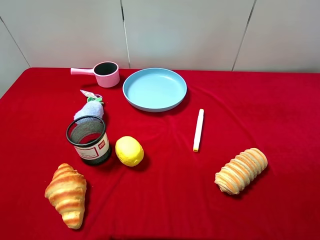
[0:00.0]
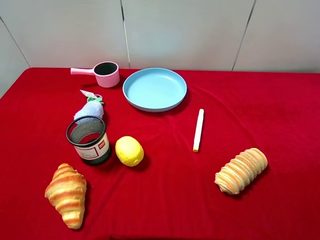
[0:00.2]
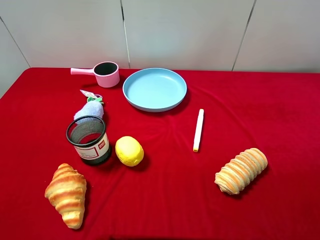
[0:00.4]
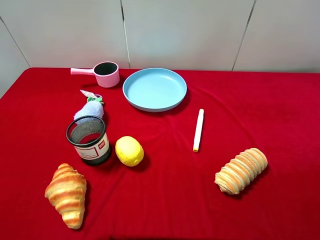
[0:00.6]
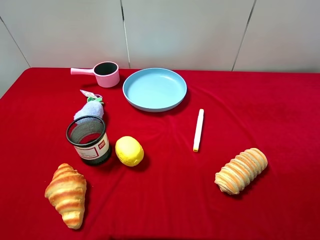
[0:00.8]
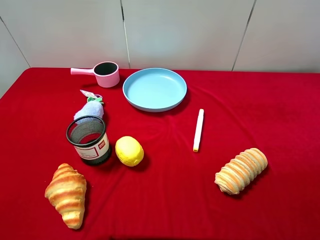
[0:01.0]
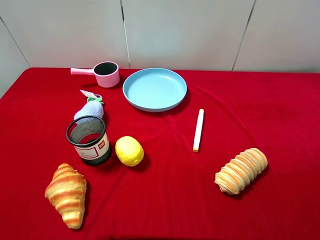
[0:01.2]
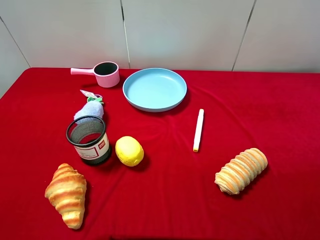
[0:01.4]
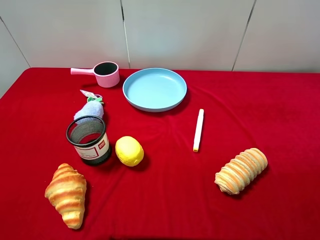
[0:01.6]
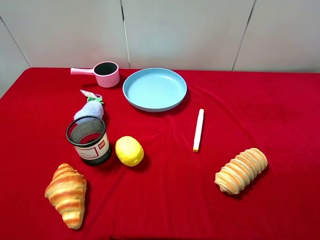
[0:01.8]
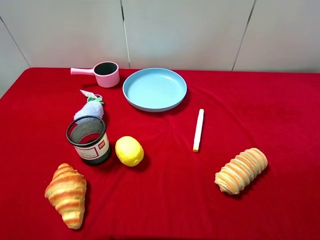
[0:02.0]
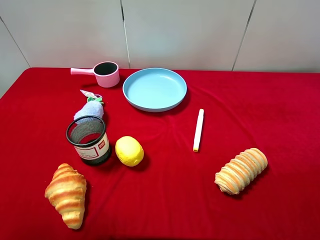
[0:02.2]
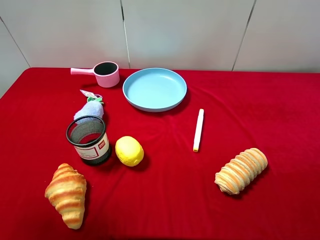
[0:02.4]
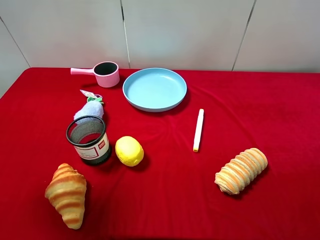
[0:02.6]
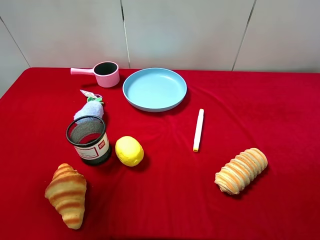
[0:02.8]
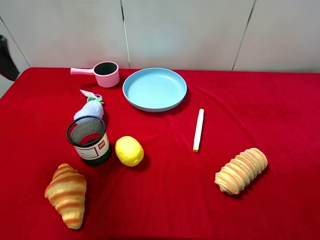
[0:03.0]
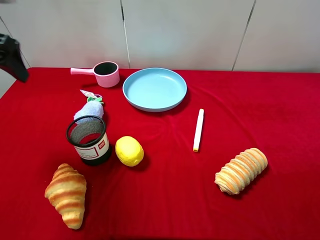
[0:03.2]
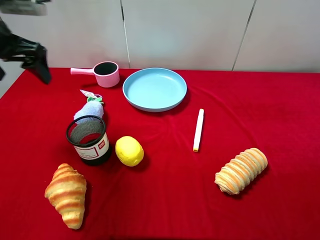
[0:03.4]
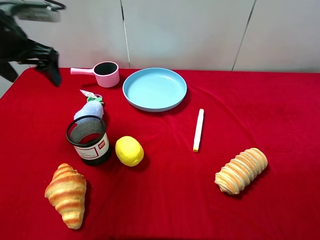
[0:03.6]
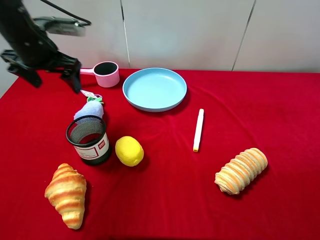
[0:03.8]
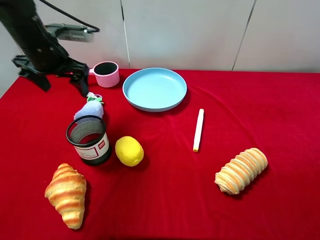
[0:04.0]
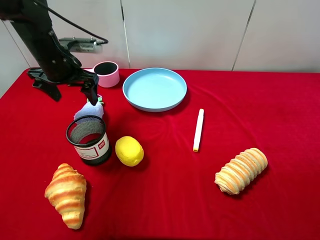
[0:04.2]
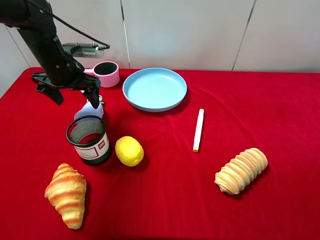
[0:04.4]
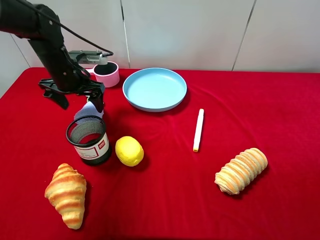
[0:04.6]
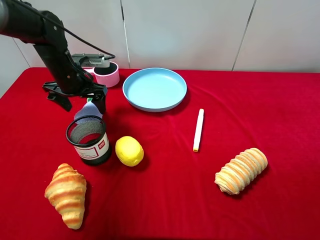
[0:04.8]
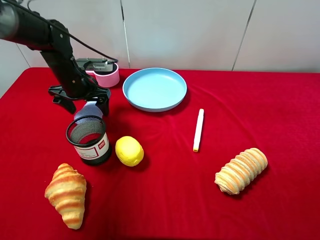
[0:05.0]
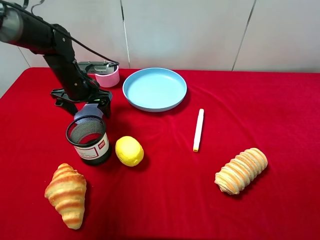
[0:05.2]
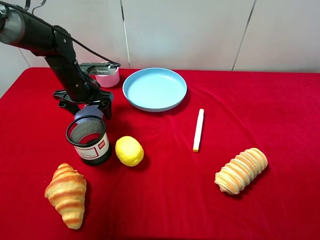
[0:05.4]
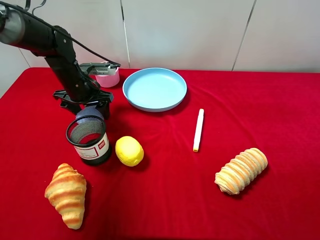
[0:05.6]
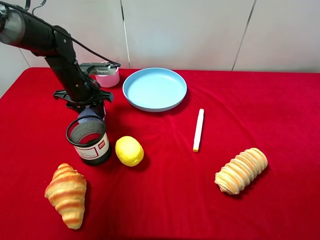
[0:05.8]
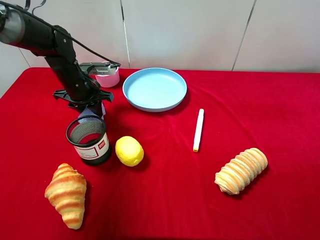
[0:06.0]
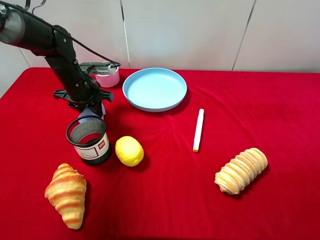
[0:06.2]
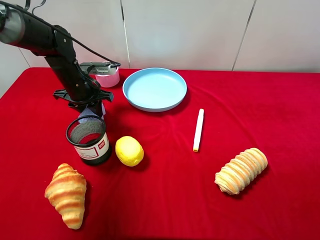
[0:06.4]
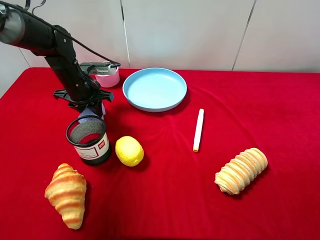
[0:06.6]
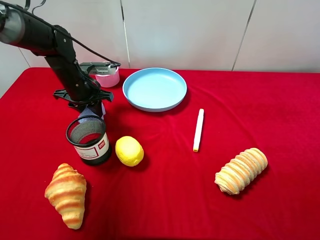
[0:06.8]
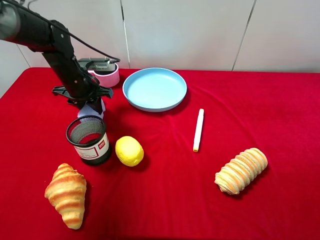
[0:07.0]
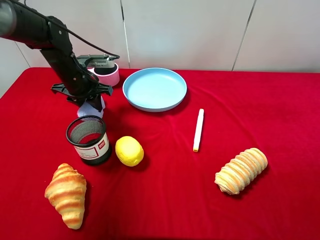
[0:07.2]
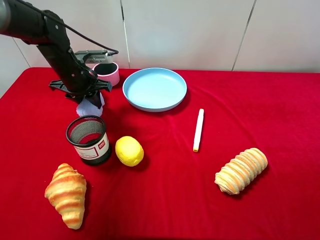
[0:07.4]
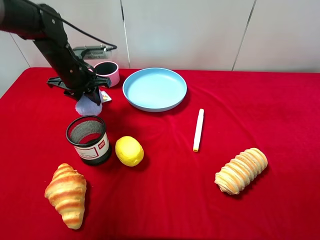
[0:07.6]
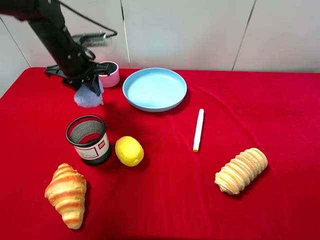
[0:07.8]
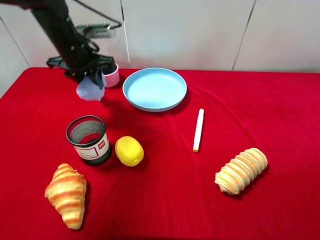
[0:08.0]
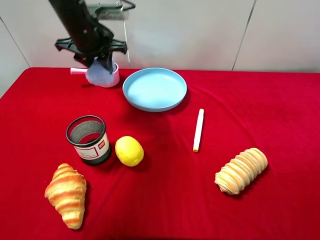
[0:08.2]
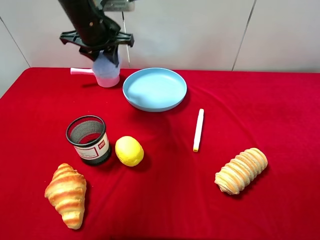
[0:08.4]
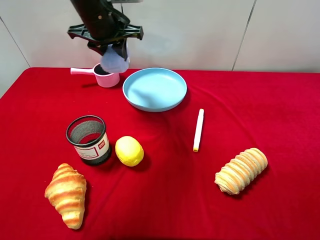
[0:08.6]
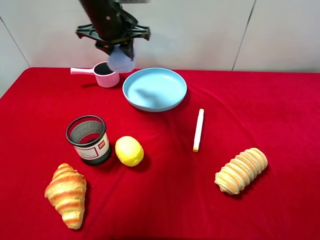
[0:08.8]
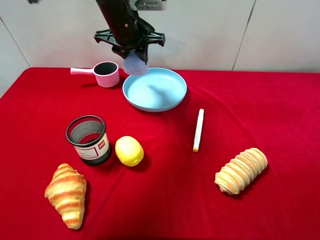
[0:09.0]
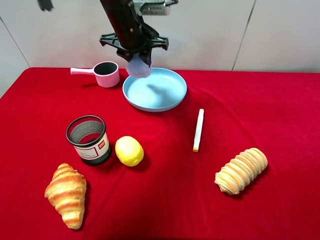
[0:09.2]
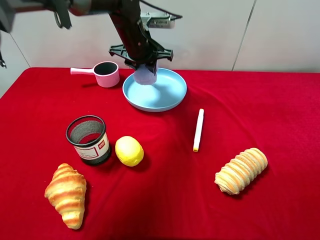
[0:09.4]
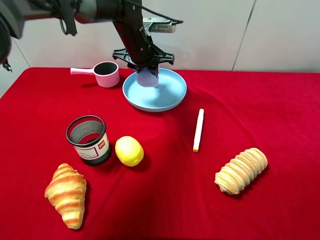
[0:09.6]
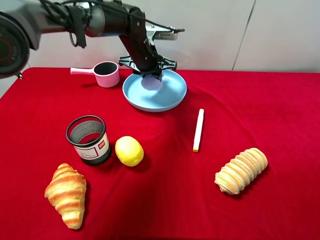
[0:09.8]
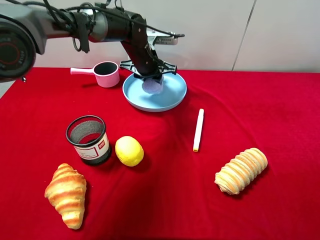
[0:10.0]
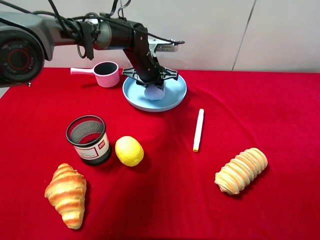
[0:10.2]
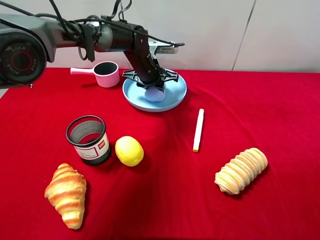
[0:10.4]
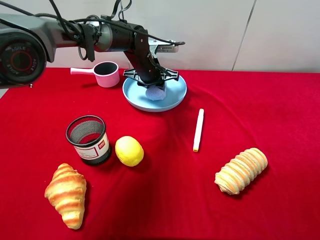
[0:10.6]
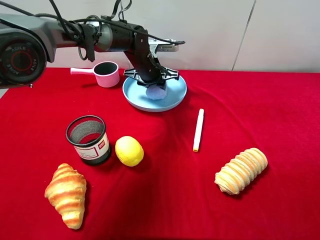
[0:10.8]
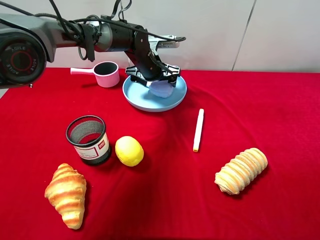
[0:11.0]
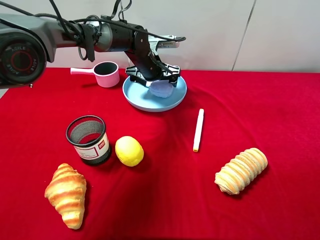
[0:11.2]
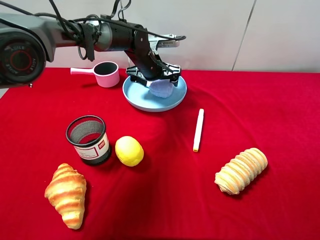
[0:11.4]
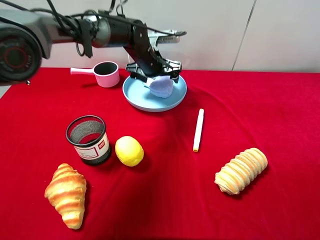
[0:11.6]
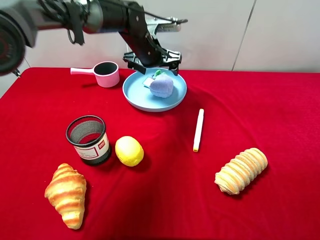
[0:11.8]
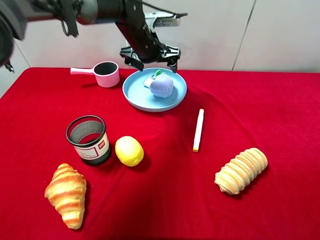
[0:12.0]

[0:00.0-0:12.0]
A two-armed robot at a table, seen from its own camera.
Task of the whole recording: pick up an item with a gripper and place it in a random container on the desktop.
0:01.6 to 0:03.0: The left gripper heads forward, covering some 25 cm.
0:03.0 to 0:04.4: The left gripper is displaced downward, forward and to the right by about 20 cm.
0:04.4 to 0:06.0: The left gripper moves downward, about 5 cm, and closes up.
0:06.0 to 0:07.6: The grippers move only a little.
0:07.6 to 0:09.0: The left gripper goes about 15 cm to the right and upward.
0:09.0 to 0:10.4: The left gripper goes roughly 15 cm downward.
0:10.4 to 0:12.0: The left gripper is displaced upward by about 10 cm, and opens.

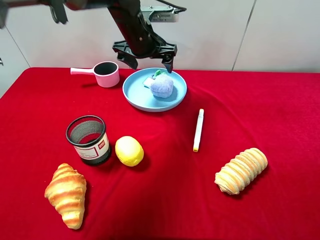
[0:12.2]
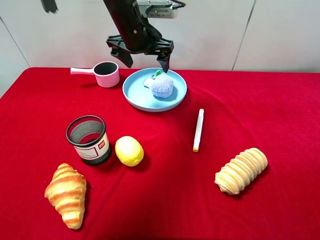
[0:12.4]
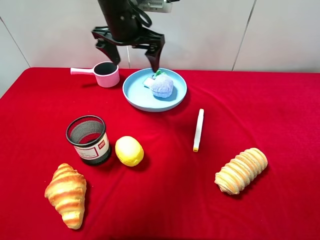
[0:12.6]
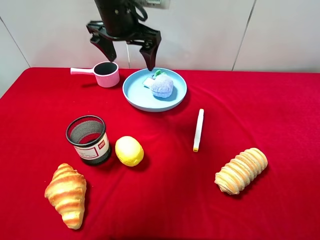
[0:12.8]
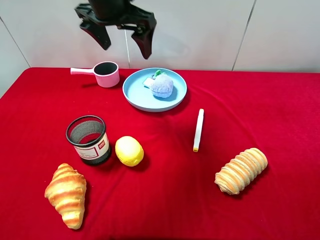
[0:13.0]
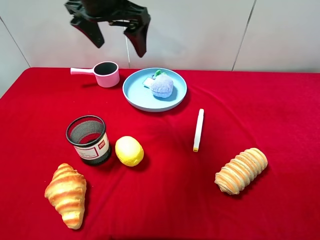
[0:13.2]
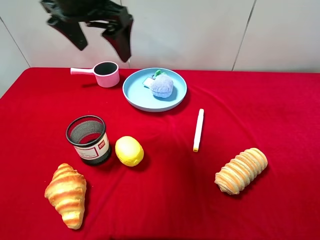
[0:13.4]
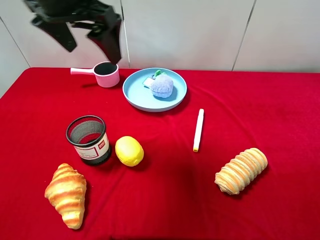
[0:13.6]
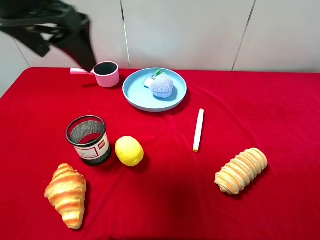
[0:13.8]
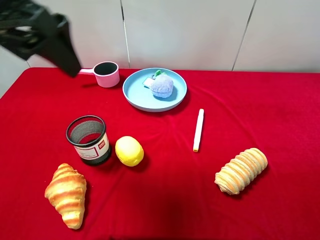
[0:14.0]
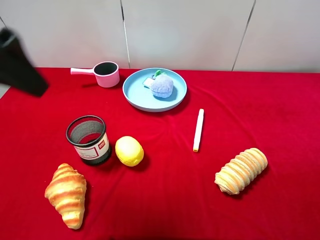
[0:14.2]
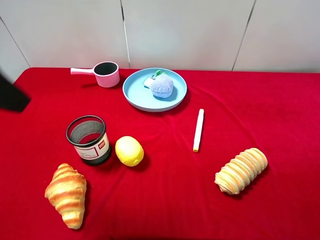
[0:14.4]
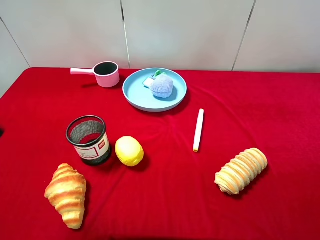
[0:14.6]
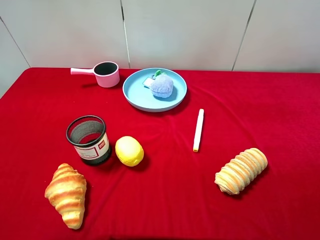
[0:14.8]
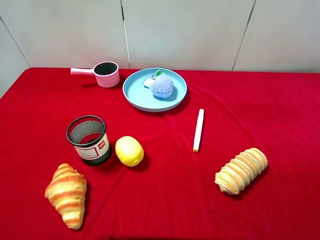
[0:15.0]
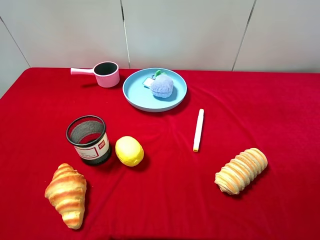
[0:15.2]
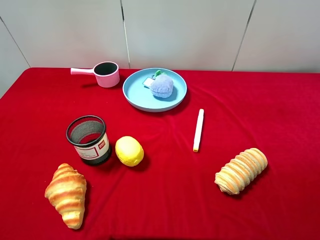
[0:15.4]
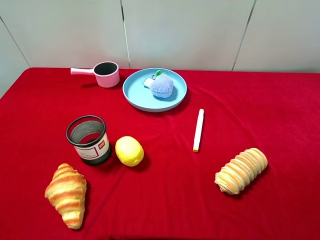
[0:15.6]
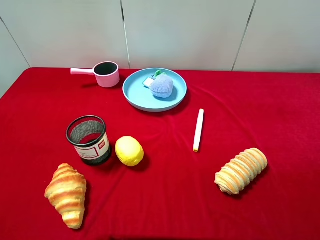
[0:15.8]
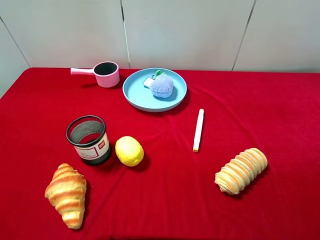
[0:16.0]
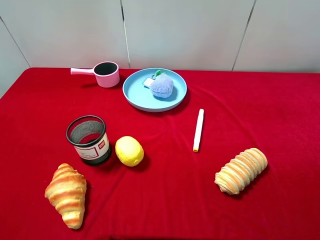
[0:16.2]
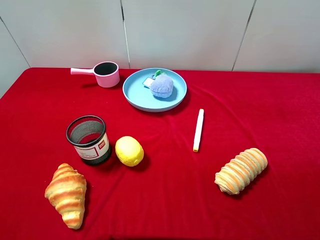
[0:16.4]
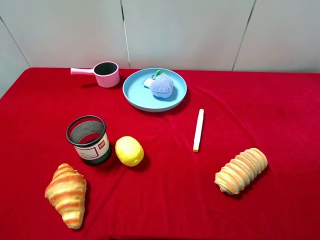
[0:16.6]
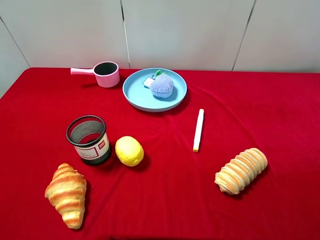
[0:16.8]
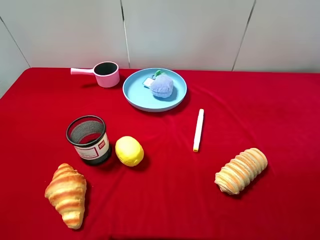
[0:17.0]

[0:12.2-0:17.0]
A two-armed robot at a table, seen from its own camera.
Task of the whole recording: pick up an item with a gripper and place it in a random container on the desktop.
0:12.2 to 0:13.8: The left gripper moves backward, upward and to the left, about 25 cm.
0:13.8 to 0:15.4: The left gripper moves backward and to the left, roughly 30 cm.

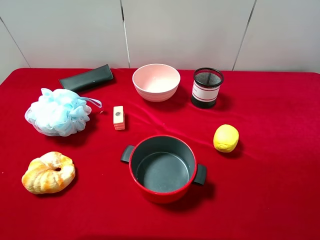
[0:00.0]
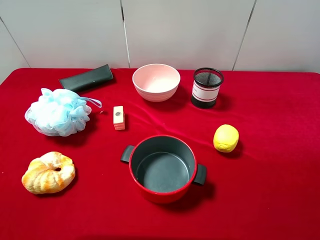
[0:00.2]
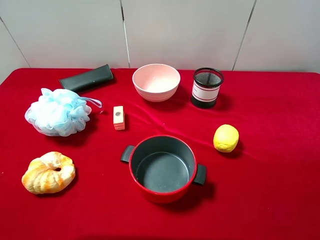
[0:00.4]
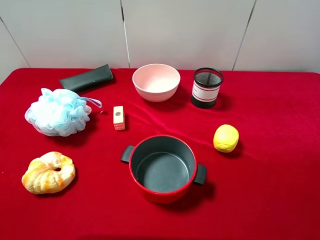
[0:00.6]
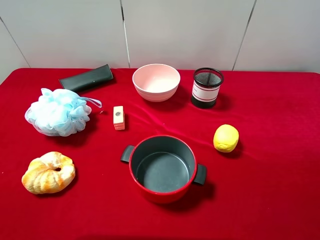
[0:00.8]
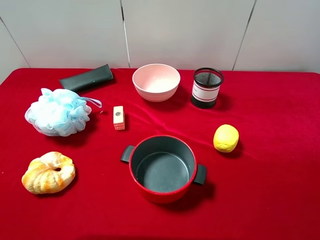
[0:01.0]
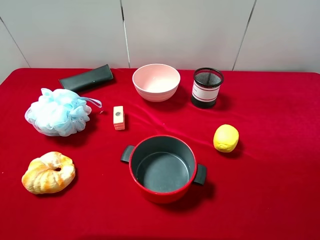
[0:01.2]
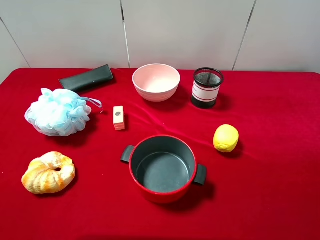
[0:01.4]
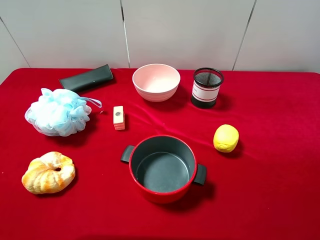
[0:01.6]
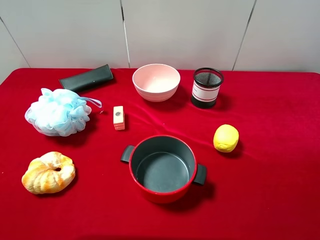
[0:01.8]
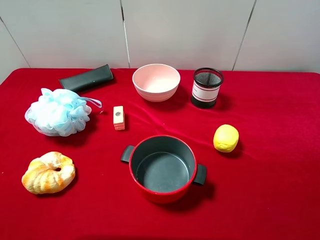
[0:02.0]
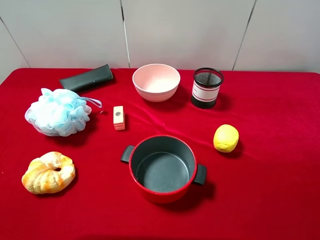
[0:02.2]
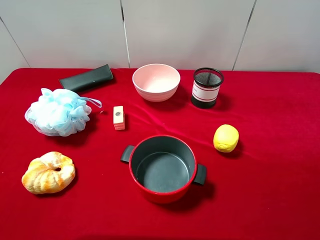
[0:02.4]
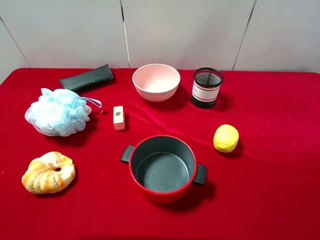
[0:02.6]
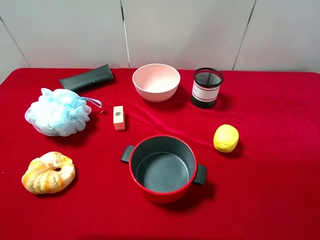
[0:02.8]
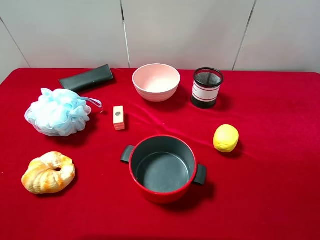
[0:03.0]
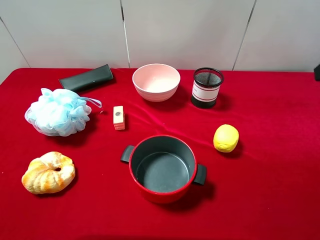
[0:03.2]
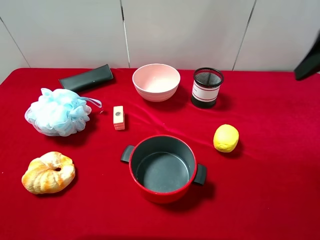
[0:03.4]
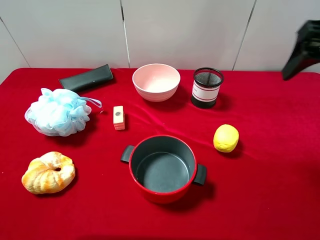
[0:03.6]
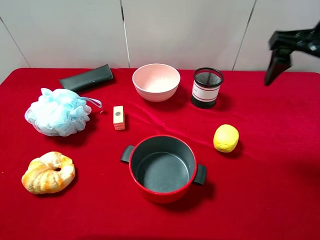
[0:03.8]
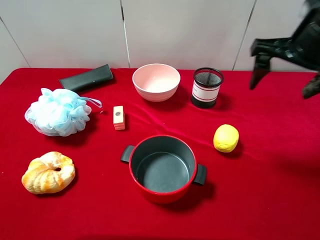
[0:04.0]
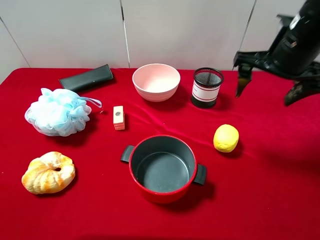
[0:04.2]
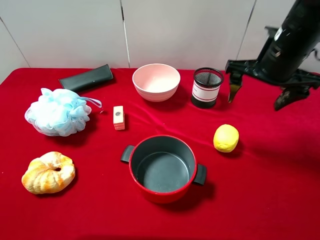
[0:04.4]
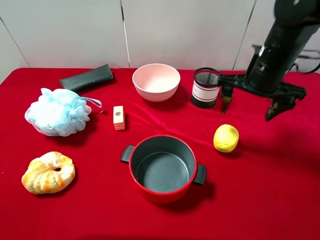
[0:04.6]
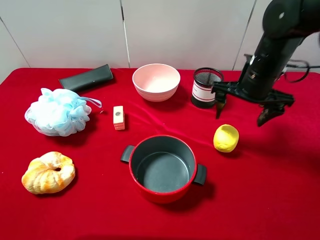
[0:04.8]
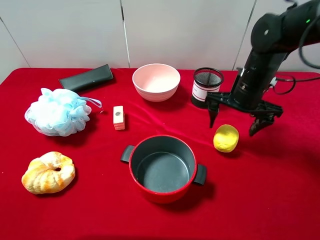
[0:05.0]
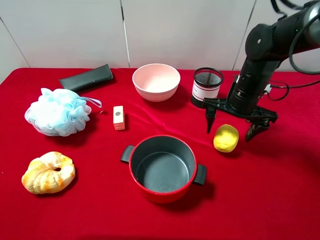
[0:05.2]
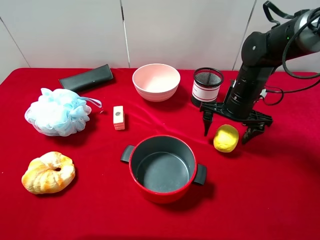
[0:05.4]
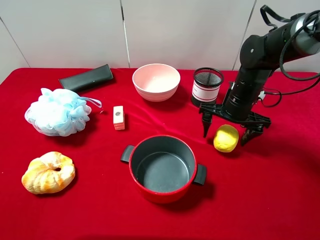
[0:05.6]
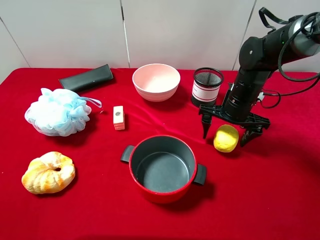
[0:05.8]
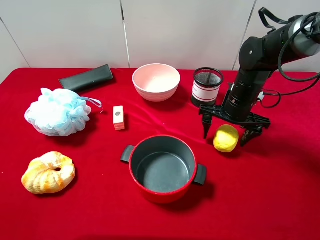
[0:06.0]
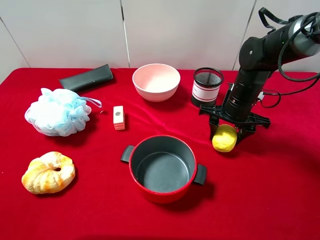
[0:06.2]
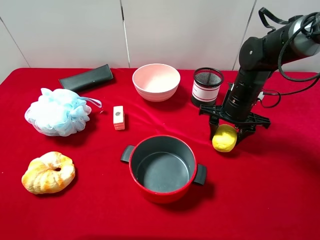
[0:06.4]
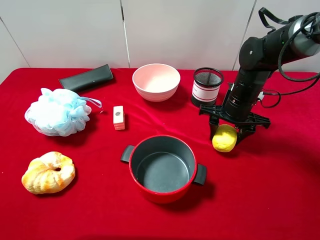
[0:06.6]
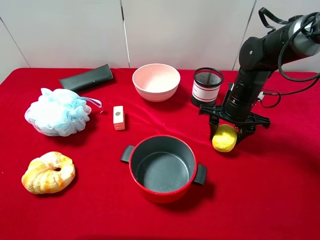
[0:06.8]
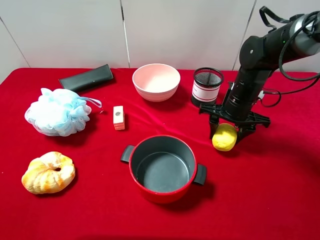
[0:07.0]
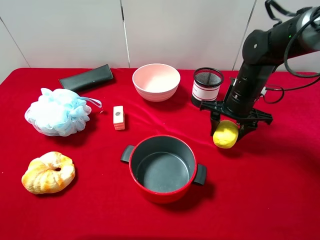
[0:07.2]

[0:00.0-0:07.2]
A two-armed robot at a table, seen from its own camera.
Task of the whole recording: pick up an item with a gripper and place it in a random container on the desktop.
0:00.0 to 0:01.4: Both grippers stay put.
0:02.8 to 0:04.4: The right gripper travels forward, downward and to the left by some 25 cm.
0:04.4 to 0:05.8: The right gripper heads downward, covering some 10 cm.
0:05.8 to 0:07.2: The right gripper closes up.
